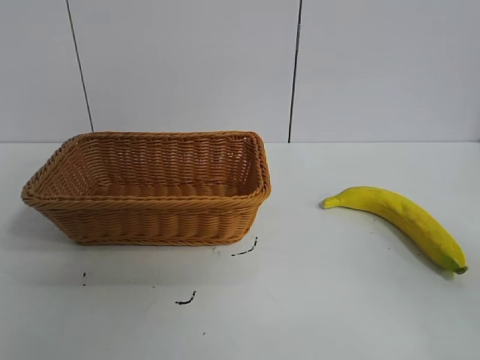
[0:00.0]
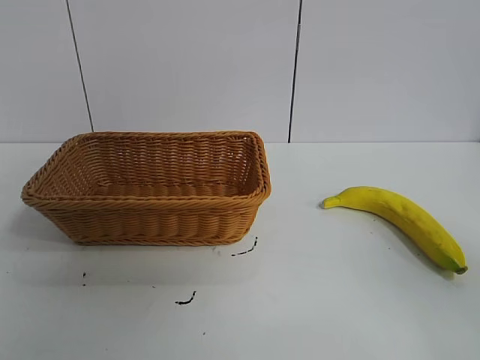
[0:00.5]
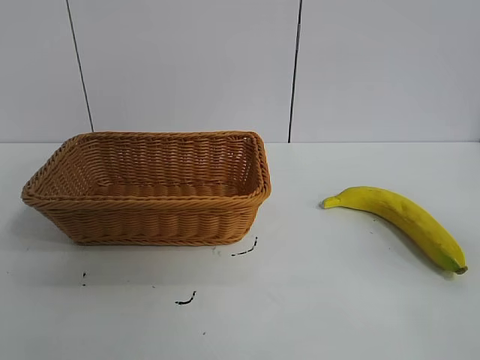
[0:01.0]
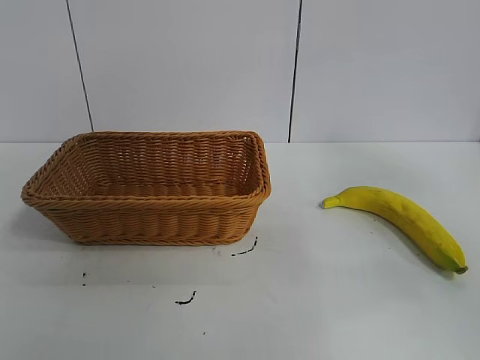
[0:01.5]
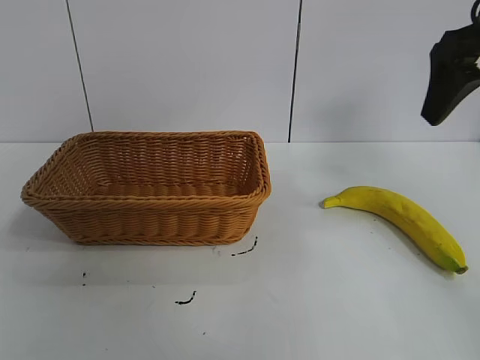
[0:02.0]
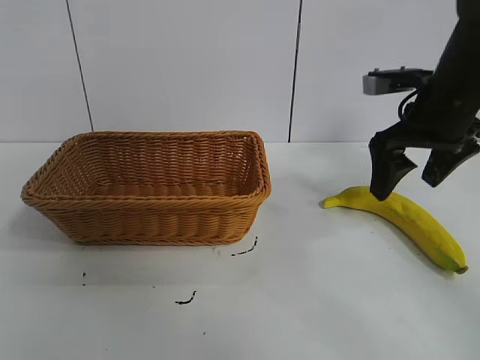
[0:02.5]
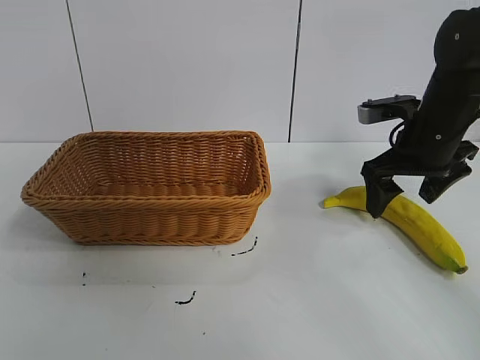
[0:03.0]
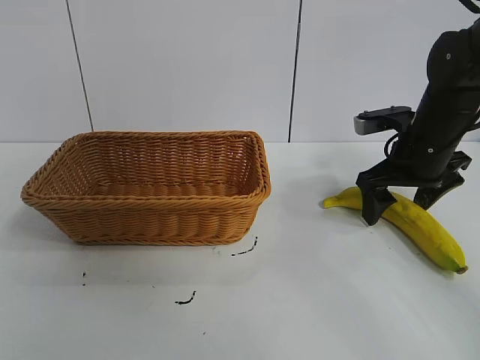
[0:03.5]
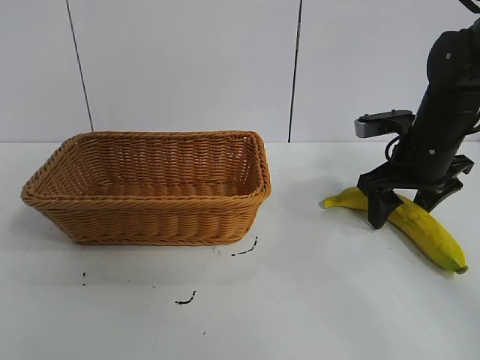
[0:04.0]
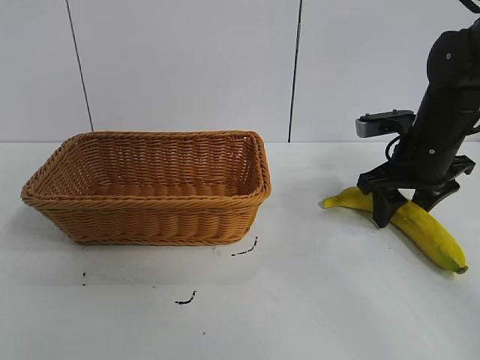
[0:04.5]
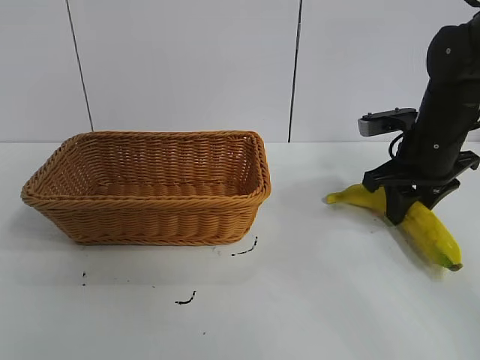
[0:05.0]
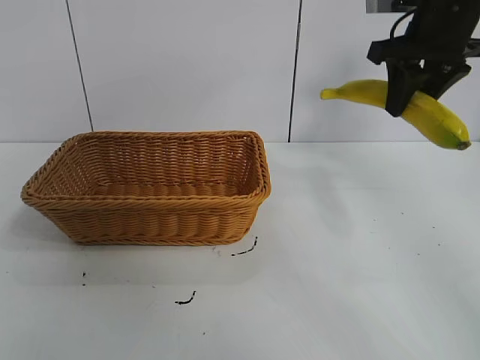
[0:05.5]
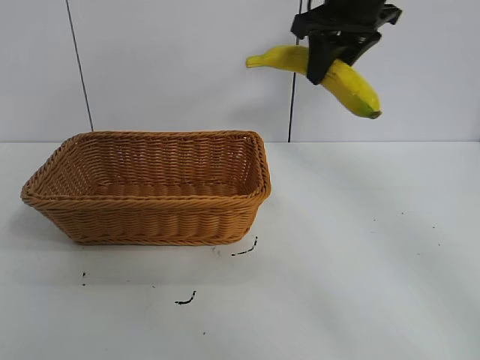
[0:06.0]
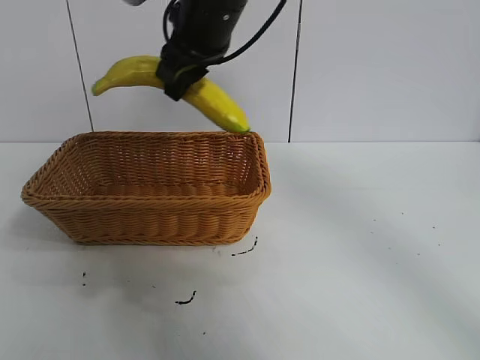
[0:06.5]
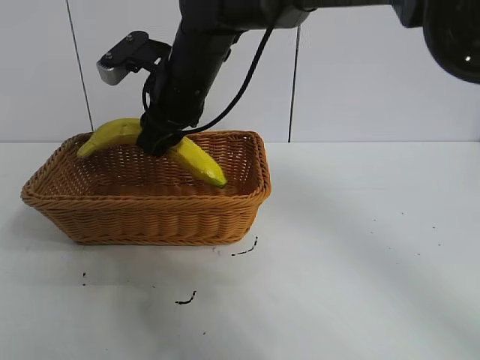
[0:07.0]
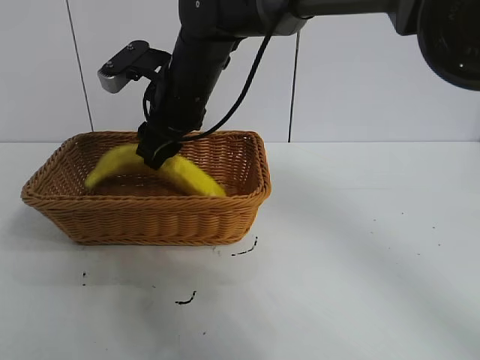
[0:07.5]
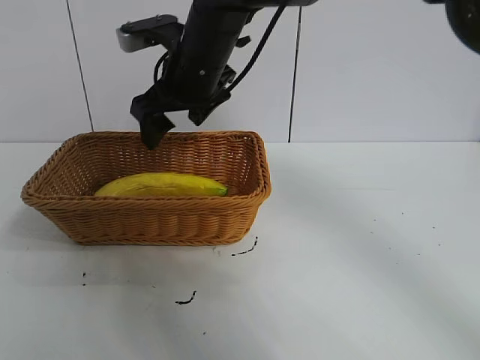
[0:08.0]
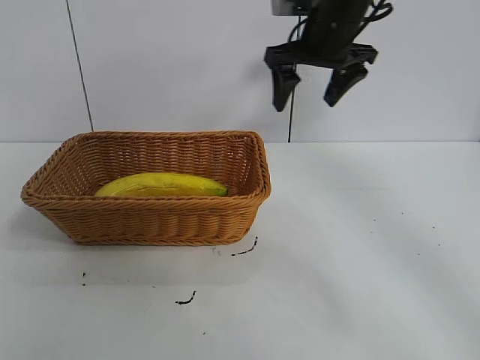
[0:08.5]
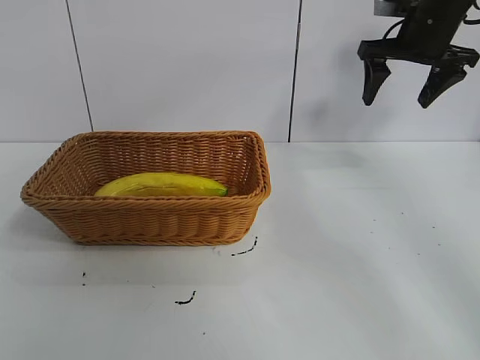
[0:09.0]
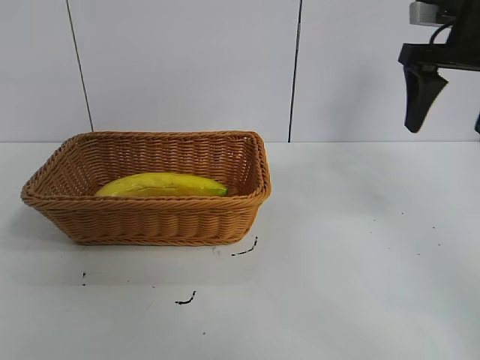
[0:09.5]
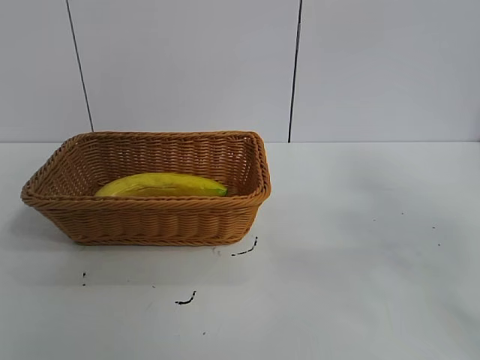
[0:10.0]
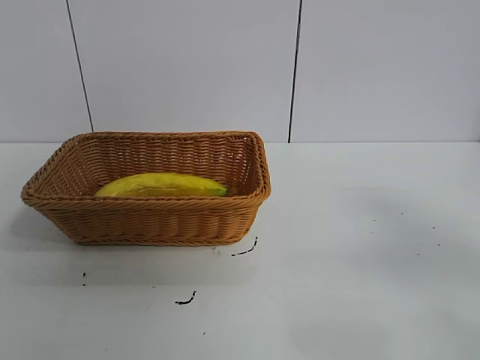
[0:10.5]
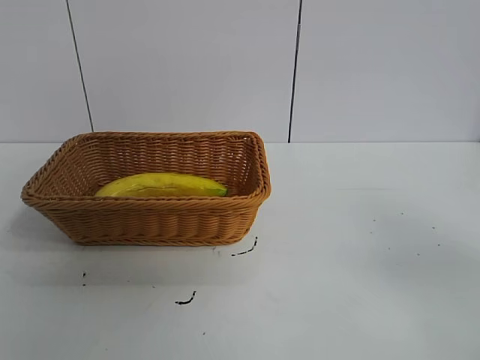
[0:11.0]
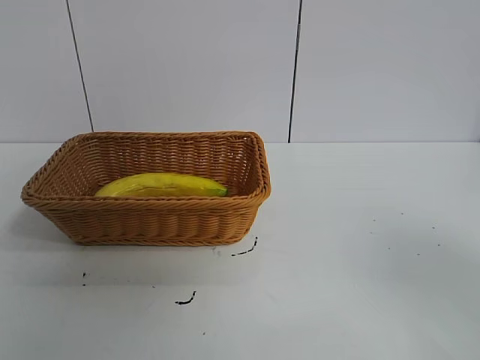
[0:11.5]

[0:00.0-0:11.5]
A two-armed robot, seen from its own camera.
Task of the whole recording: pick up the banana and put it into the basket.
Step, 0:01.0 to 0:04.5: Grasp the banana with right gripper.
Step, 0:05.0 to 0:07.5: Place the banana in the basket with right gripper.
